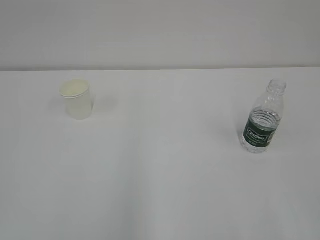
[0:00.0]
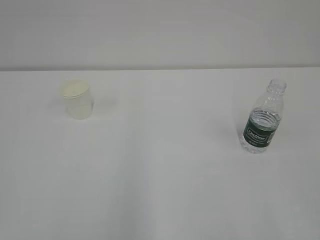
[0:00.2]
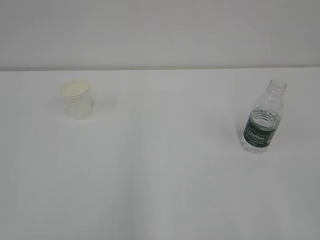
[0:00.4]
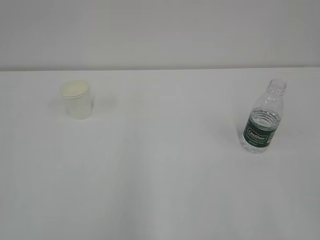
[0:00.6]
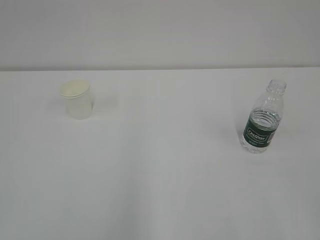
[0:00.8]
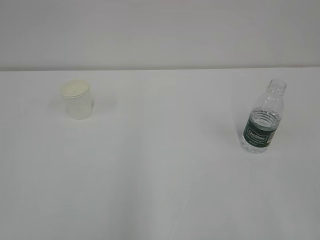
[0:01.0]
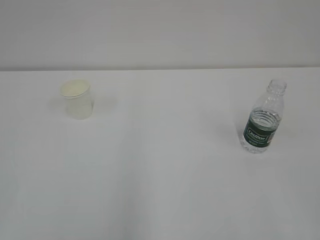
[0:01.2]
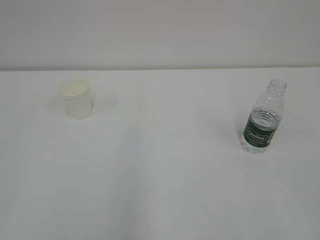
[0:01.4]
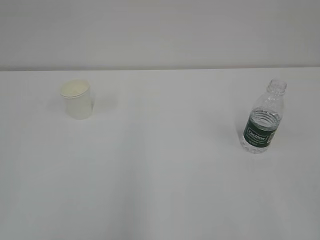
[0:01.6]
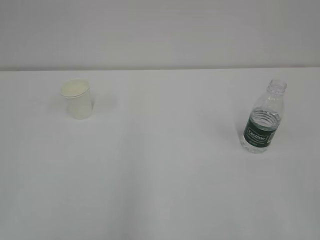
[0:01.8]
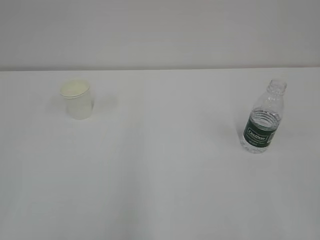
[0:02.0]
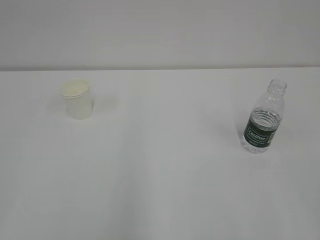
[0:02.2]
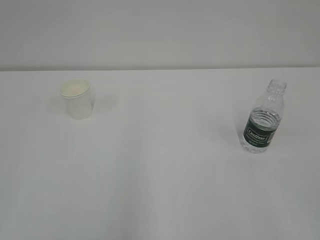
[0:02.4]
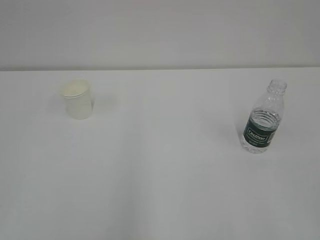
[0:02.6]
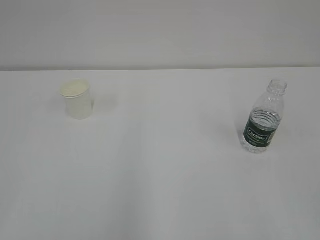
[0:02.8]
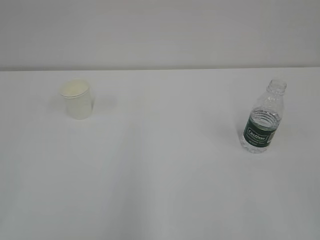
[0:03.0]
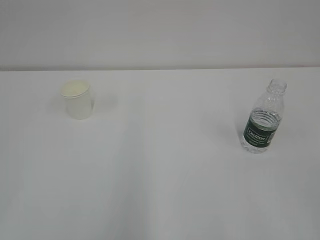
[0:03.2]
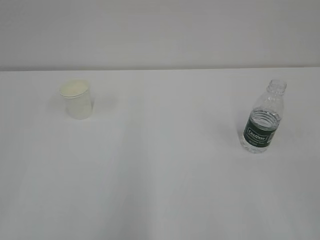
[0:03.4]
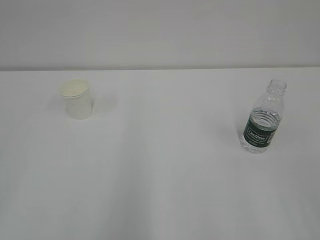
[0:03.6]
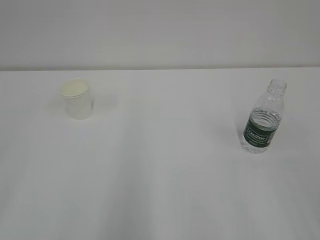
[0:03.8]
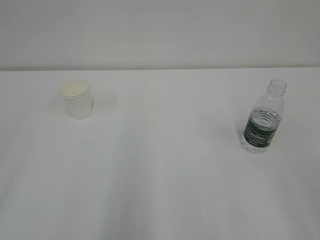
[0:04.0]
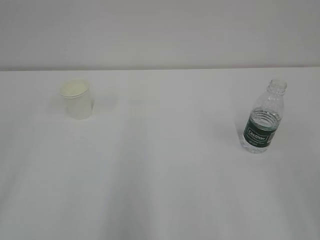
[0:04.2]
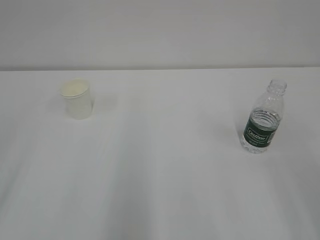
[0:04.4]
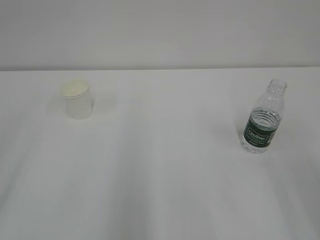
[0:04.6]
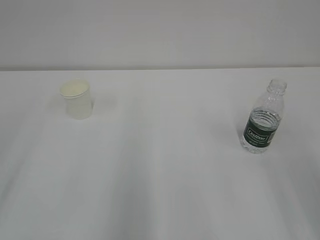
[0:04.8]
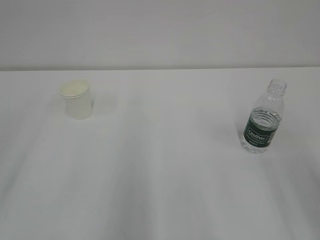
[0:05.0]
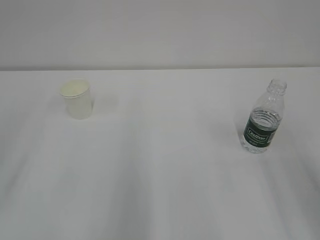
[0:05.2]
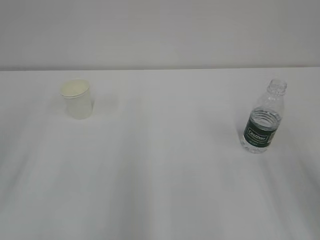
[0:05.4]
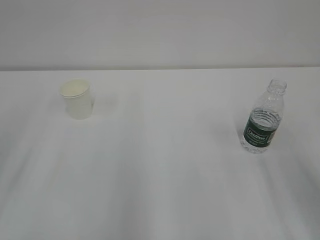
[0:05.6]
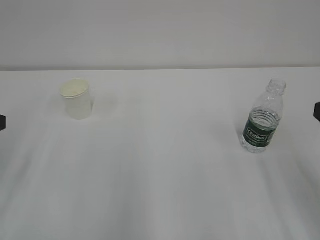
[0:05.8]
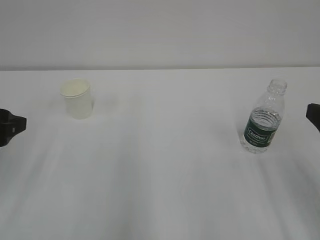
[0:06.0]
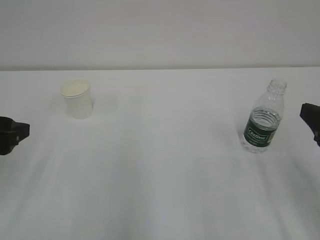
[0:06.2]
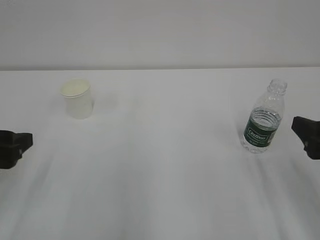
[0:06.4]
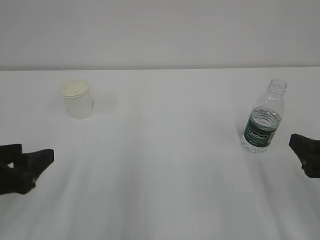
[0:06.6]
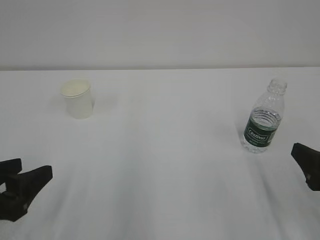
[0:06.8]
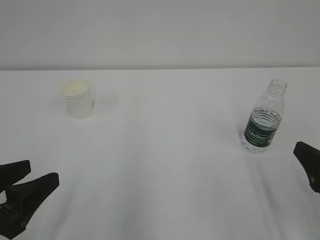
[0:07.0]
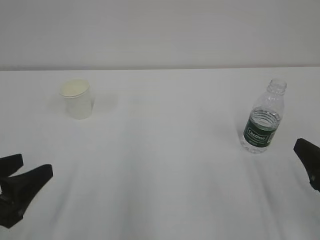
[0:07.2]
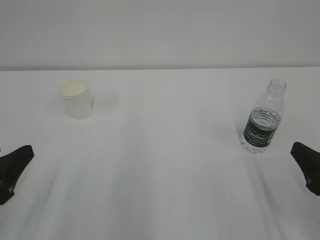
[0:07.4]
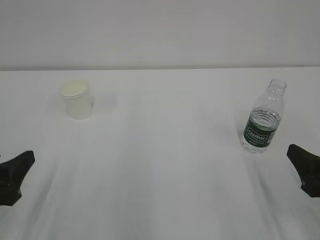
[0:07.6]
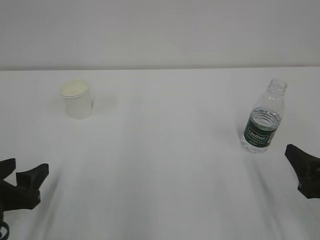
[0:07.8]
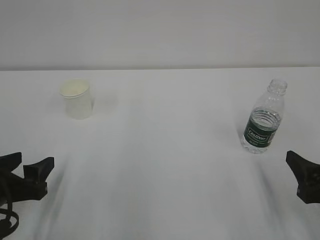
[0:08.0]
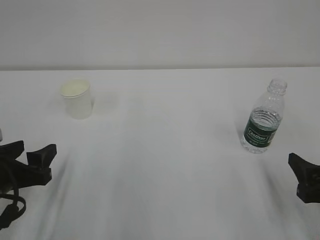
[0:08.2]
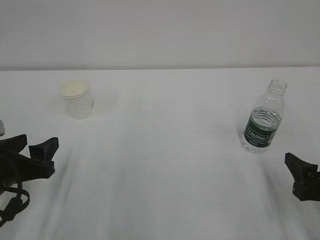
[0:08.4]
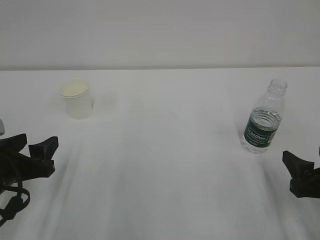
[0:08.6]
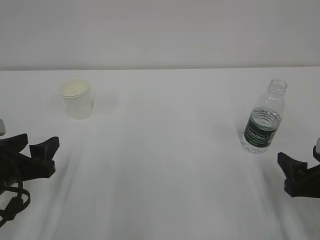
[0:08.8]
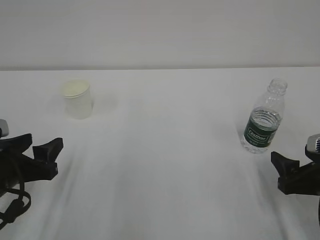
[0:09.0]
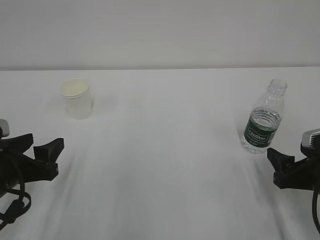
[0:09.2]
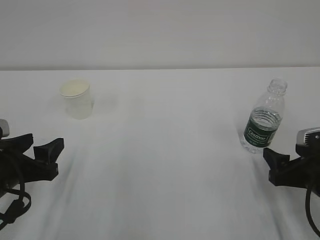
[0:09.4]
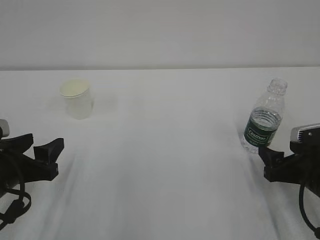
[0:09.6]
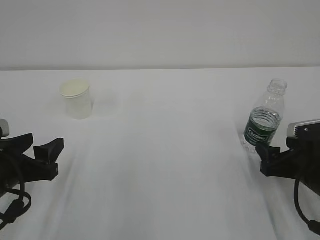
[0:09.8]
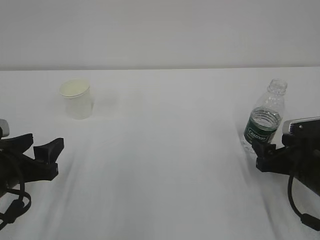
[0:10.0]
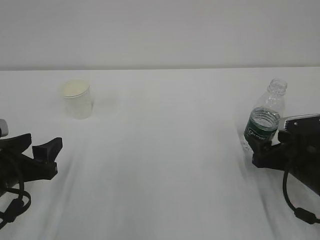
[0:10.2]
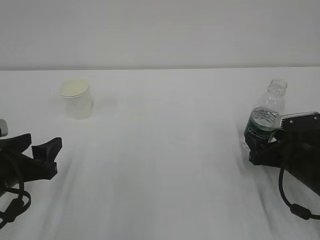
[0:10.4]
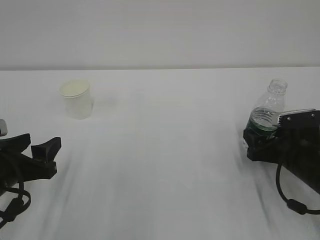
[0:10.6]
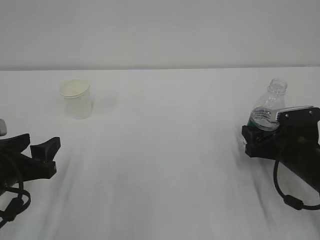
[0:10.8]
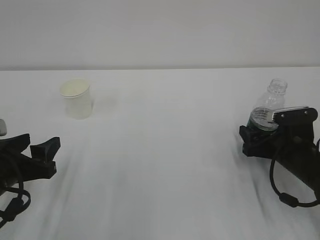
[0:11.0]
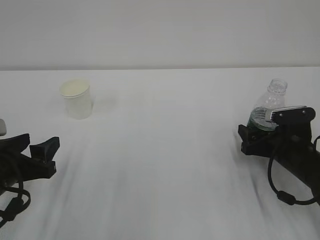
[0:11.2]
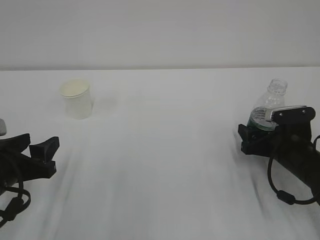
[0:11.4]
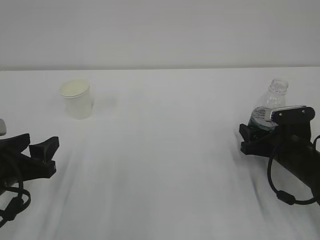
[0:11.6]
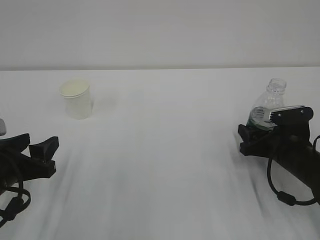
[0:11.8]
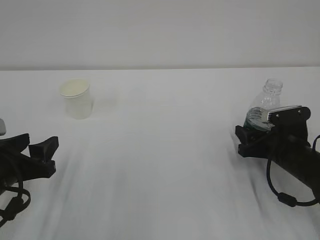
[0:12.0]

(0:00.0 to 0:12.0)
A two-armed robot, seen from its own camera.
0:04.4 - 0:06.0: The left gripper shifts some 15 cm forward and downward.
0:06.0 - 0:07.6: The right gripper goes about 10 cm downward. The left gripper heads backward and downward, covering roughly 10 cm.
0:07.6 - 0:09.0: The right gripper moves approximately 5 cm. The left gripper moves forward, some 5 cm.
0:09.0 - 0:10.4: The right gripper is displaced forward by roughly 10 cm.
0:10.4 - 0:12.0: The right gripper closes.

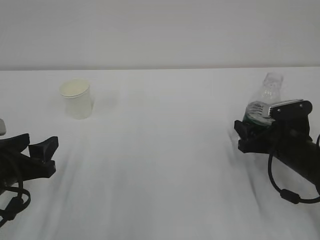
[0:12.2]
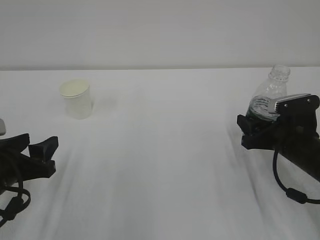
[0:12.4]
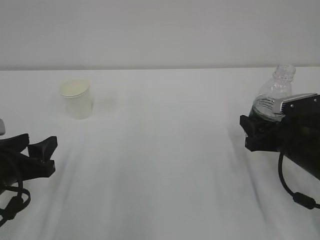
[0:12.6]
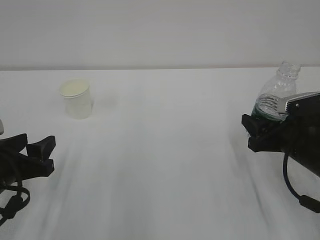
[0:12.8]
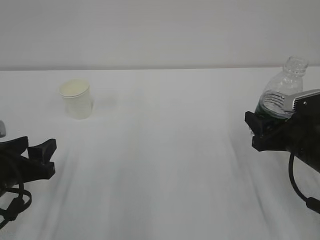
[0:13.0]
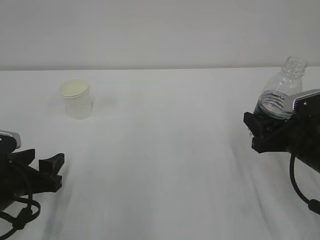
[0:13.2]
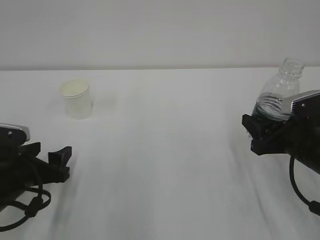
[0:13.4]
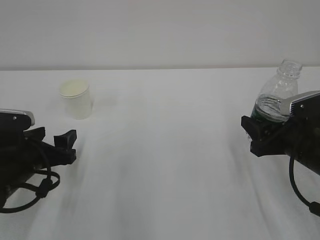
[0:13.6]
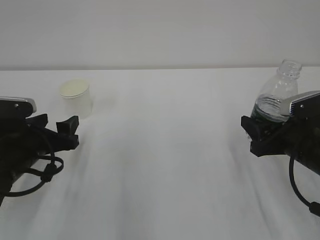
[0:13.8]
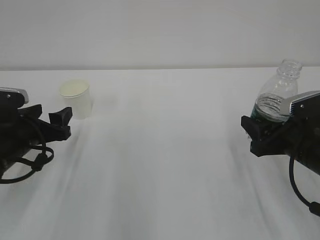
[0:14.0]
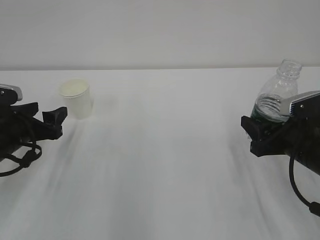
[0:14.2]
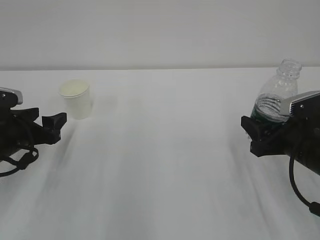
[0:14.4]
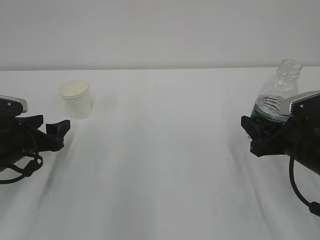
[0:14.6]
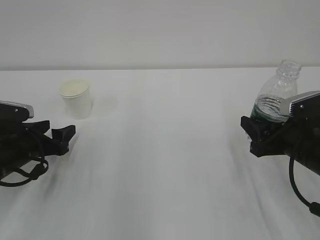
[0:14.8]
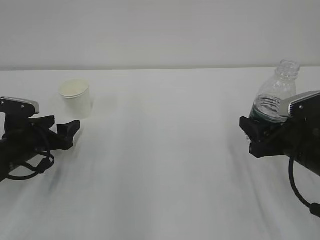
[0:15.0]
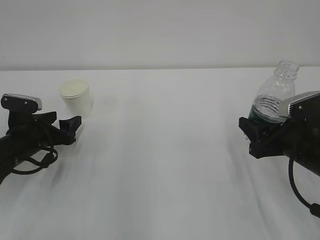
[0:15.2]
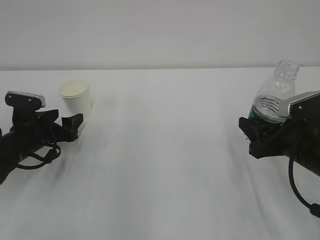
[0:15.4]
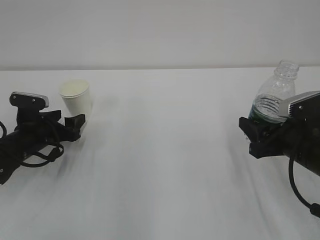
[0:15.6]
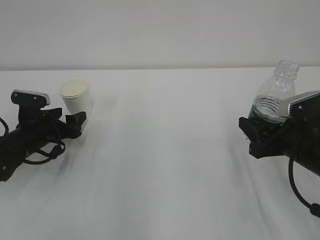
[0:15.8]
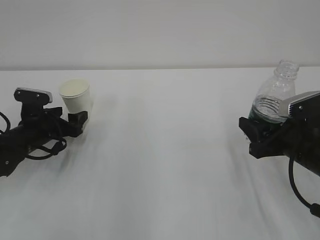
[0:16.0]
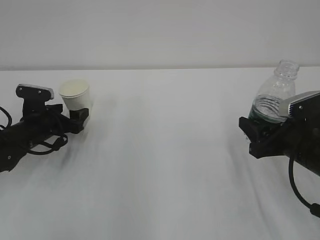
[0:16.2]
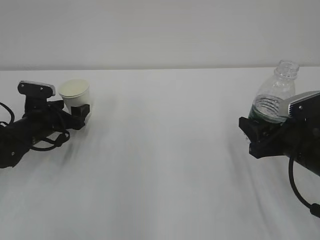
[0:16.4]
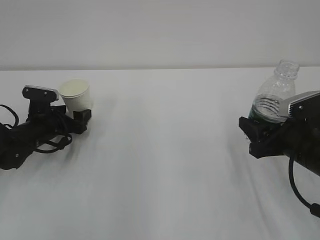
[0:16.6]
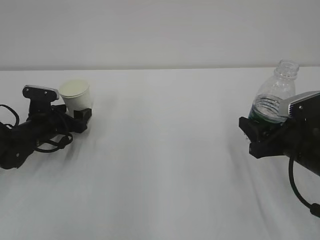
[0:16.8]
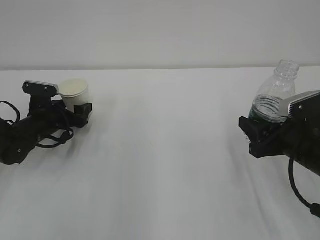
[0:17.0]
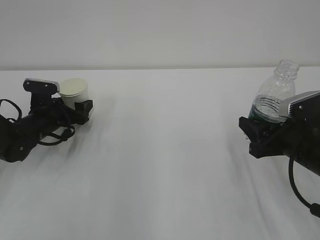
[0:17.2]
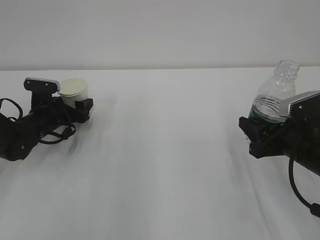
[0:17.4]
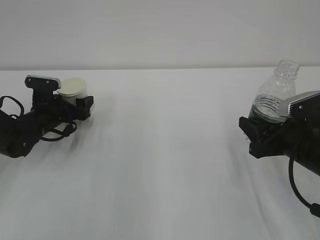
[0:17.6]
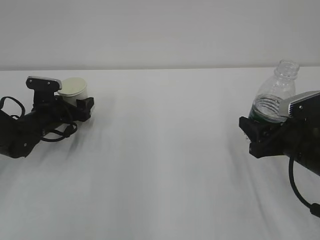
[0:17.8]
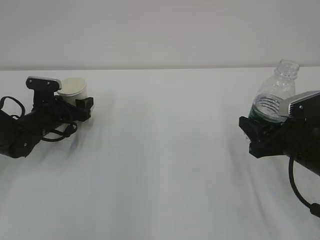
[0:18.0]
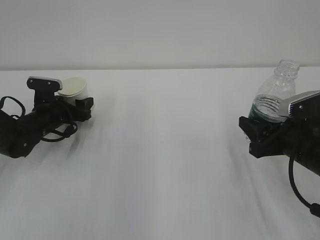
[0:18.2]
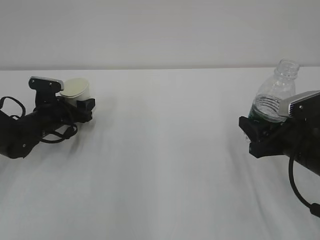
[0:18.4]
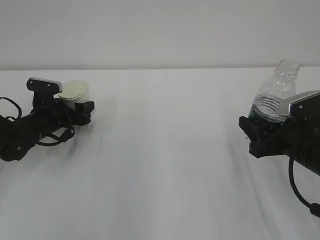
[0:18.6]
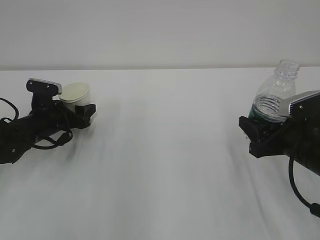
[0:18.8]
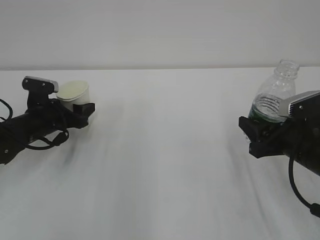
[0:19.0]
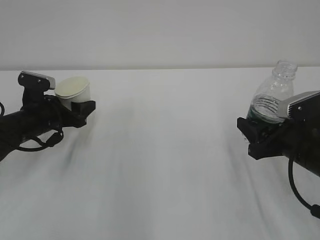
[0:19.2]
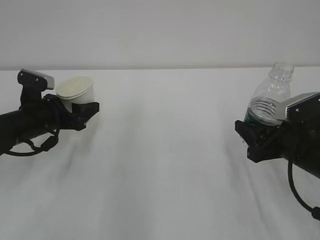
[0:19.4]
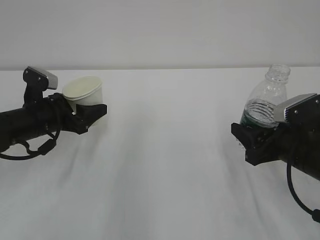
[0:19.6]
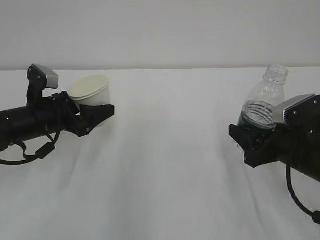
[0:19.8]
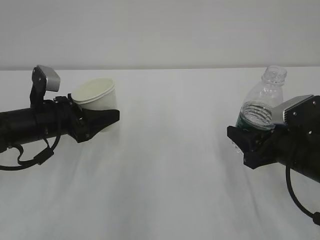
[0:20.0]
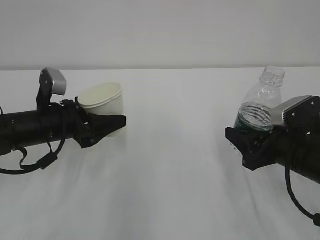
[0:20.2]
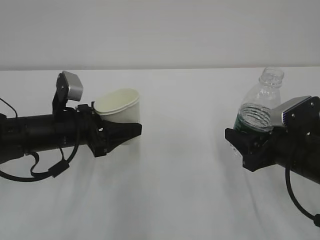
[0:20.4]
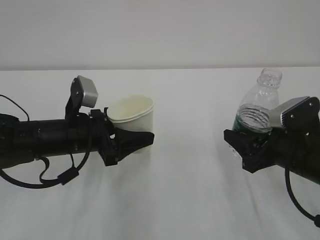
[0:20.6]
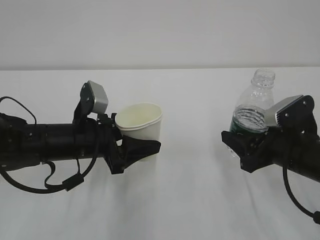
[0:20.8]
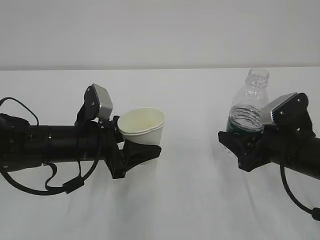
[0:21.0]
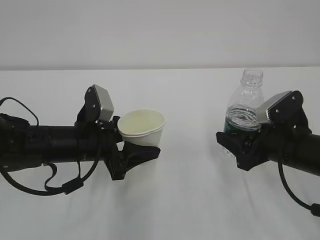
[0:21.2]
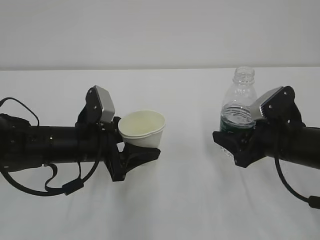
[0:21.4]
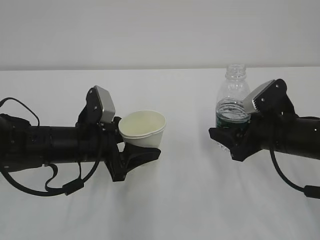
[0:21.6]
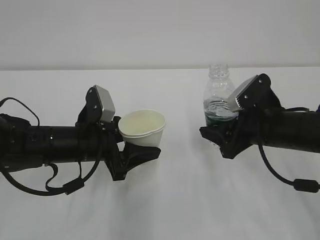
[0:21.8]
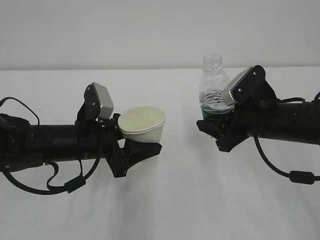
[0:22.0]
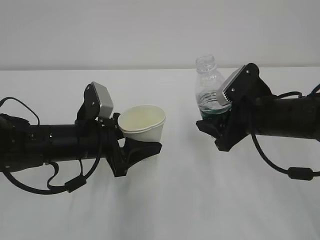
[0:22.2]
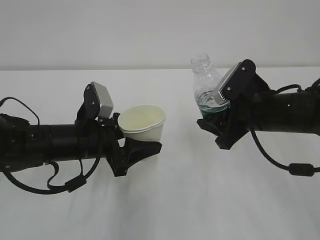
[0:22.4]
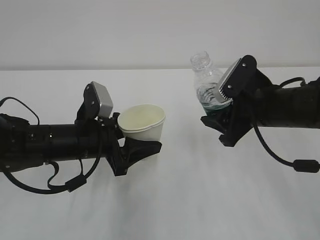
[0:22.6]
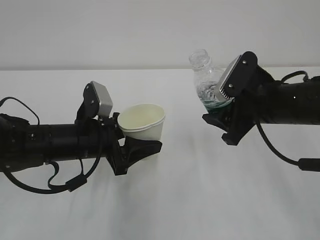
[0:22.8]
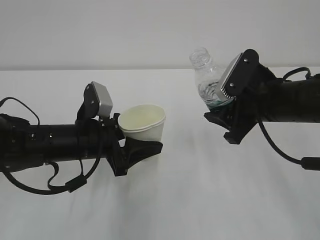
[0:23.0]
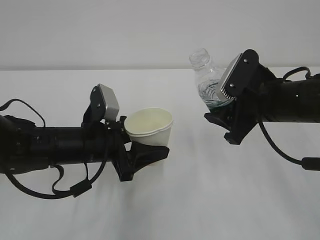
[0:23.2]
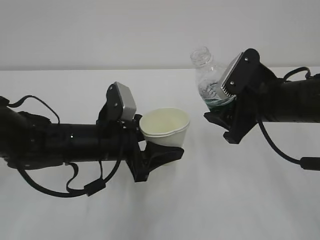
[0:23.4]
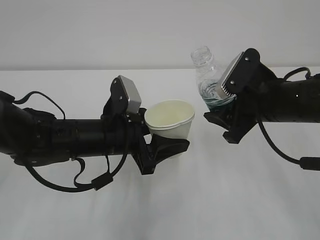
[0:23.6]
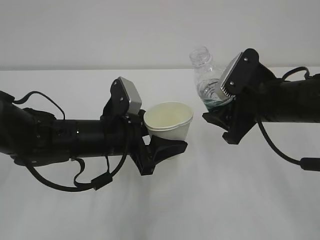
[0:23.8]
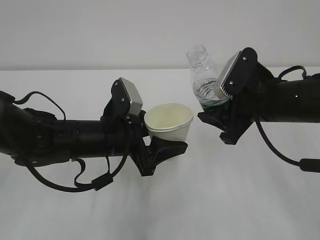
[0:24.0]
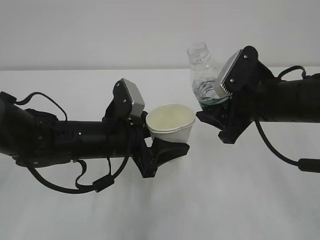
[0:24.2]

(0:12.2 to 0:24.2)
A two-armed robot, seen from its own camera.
0:12.2 - 0:13.8: The left gripper heads forward, covering about 5 cm, and opens up. Meanwhile the right gripper moves roughly 5 cm.
0:13.8 - 0:15.2: The left gripper moves forward, some 5 cm.
0:15.2 - 0:16.6: The left gripper moves forward, roughly 5 cm.
0:16.6 - 0:18.2: The left gripper closes.
0:18.2 - 0:19.8: The left gripper travels backward and upward by roughly 10 cm.
0:19.8 - 0:21.2: The left gripper travels to the right by roughly 10 cm.
0:21.2 - 0:22.6: The right gripper shifts approximately 5 cm upward.
0:22.6 - 0:24.2: The grippers stay close to where they were, moving slightly.
